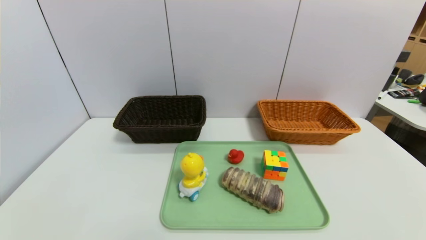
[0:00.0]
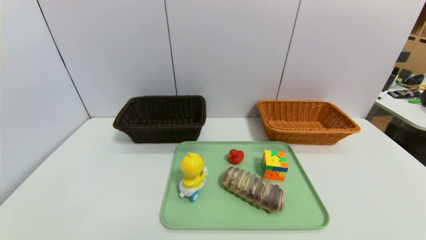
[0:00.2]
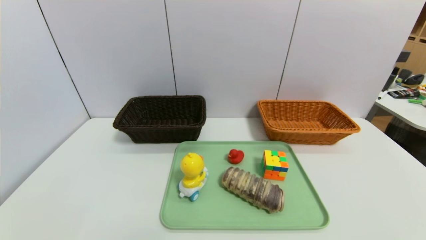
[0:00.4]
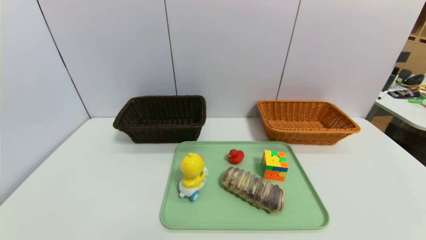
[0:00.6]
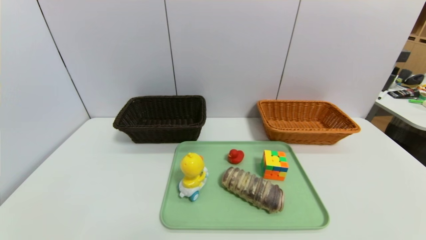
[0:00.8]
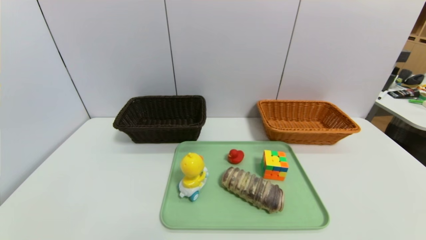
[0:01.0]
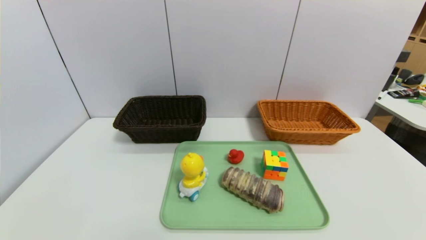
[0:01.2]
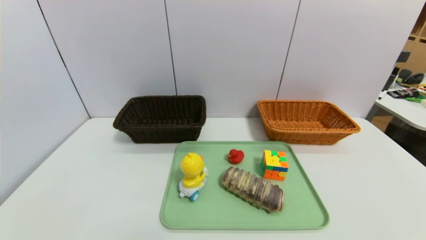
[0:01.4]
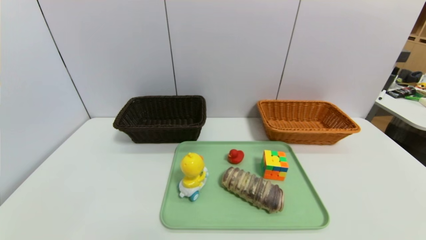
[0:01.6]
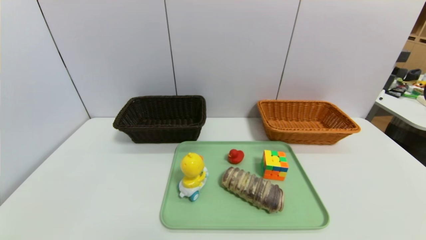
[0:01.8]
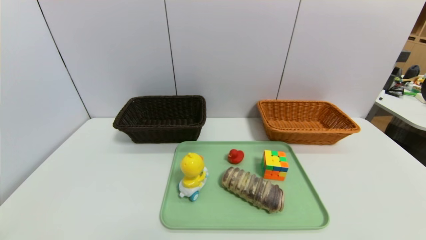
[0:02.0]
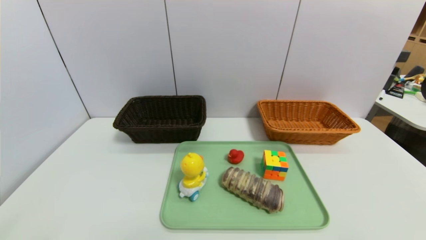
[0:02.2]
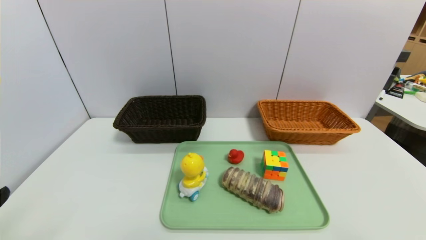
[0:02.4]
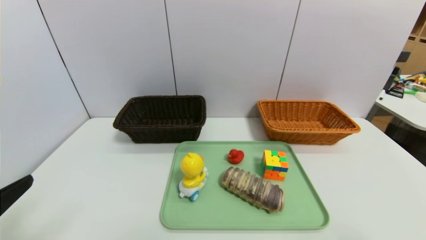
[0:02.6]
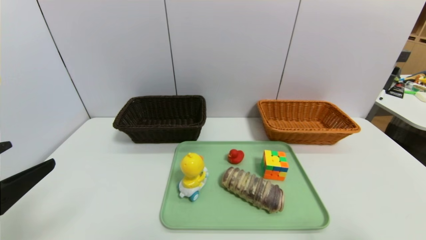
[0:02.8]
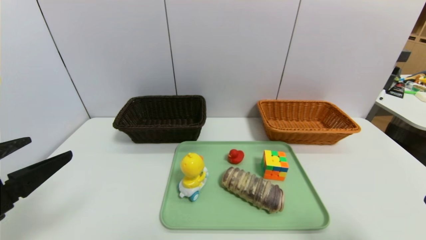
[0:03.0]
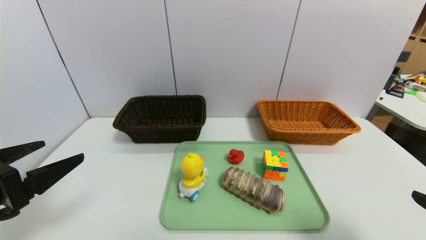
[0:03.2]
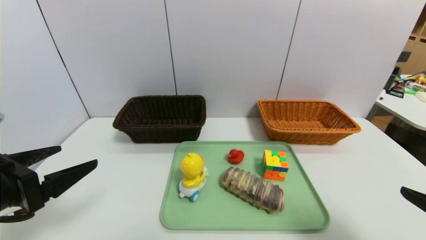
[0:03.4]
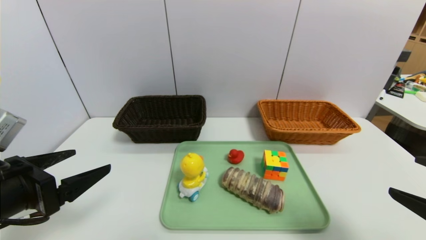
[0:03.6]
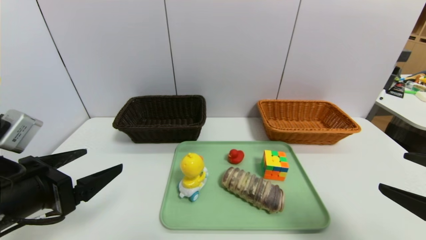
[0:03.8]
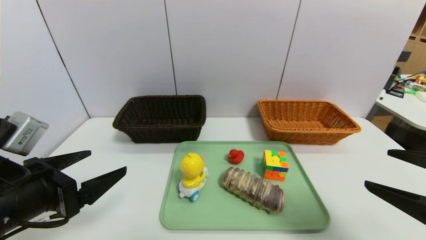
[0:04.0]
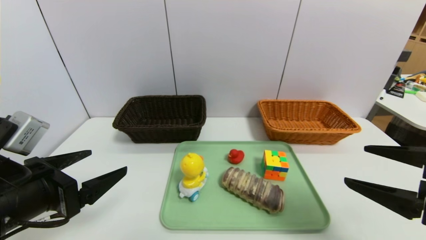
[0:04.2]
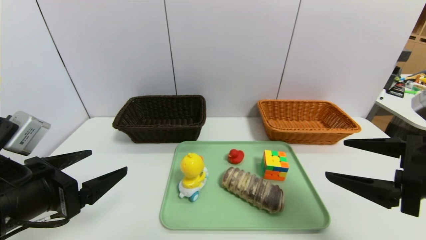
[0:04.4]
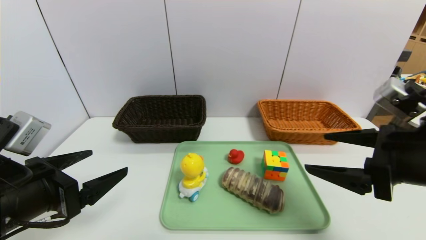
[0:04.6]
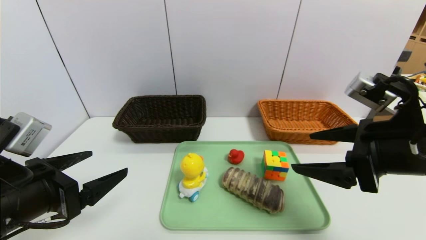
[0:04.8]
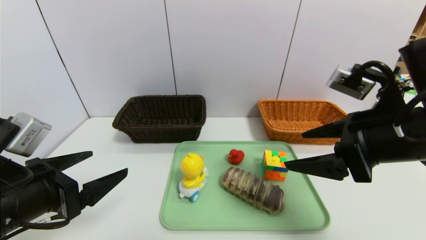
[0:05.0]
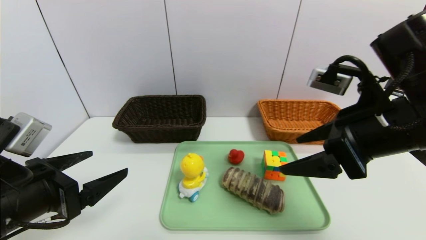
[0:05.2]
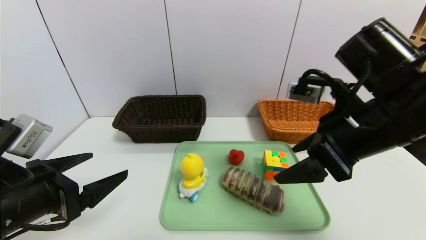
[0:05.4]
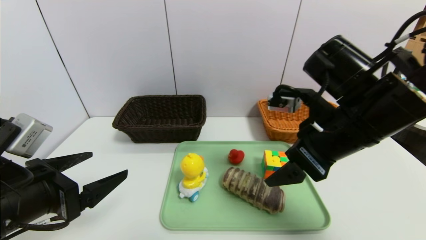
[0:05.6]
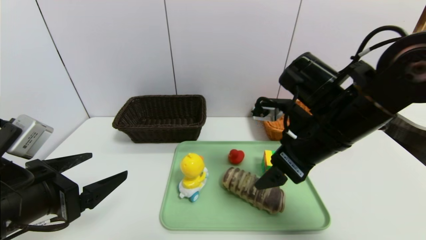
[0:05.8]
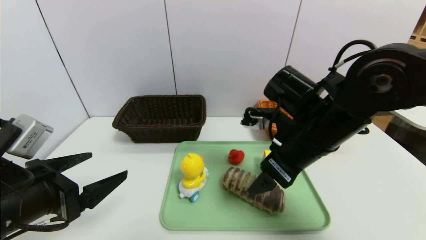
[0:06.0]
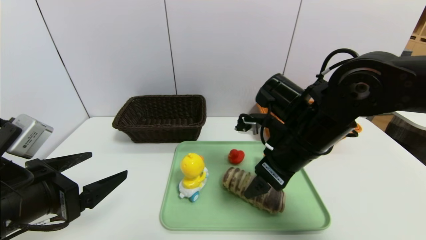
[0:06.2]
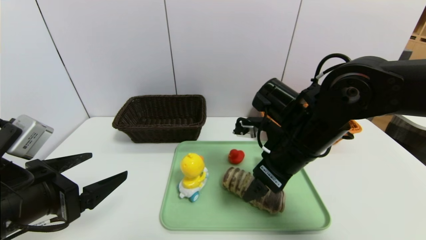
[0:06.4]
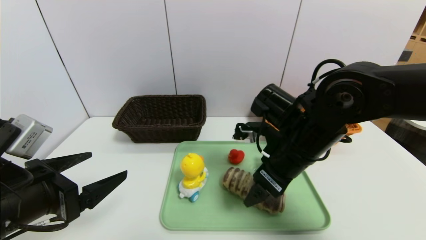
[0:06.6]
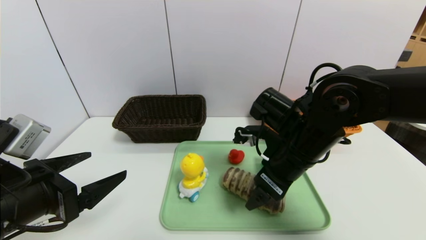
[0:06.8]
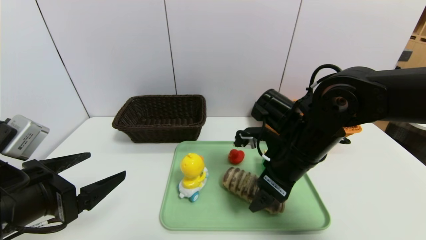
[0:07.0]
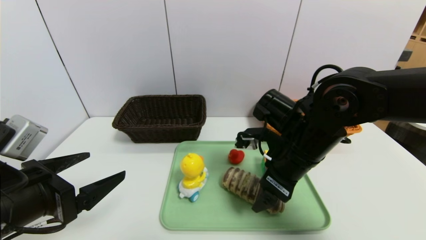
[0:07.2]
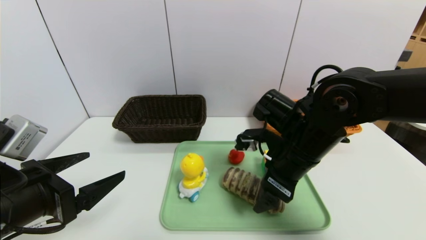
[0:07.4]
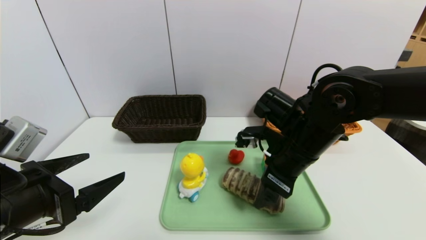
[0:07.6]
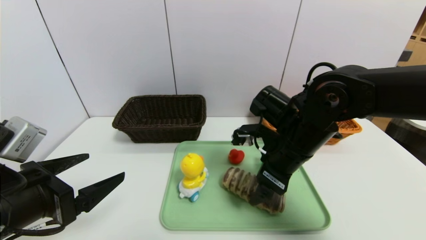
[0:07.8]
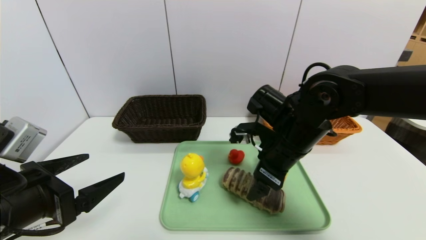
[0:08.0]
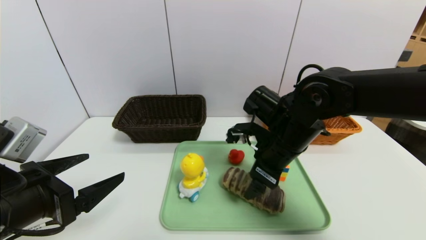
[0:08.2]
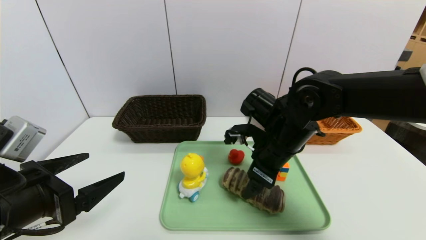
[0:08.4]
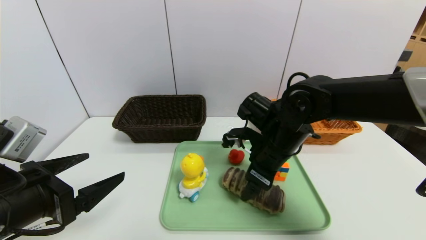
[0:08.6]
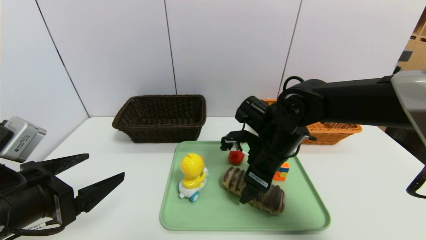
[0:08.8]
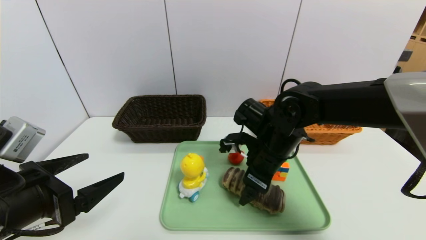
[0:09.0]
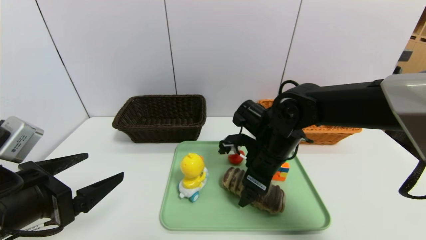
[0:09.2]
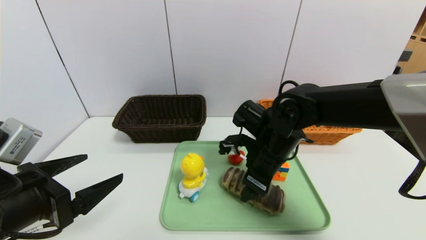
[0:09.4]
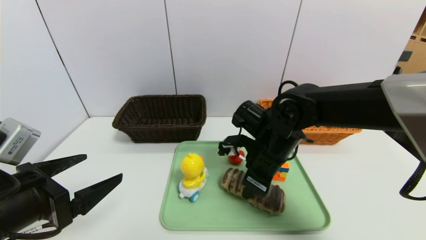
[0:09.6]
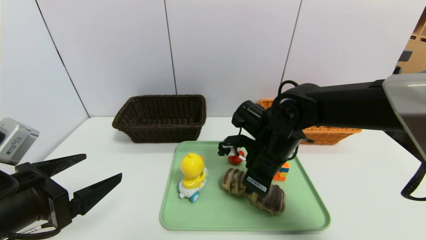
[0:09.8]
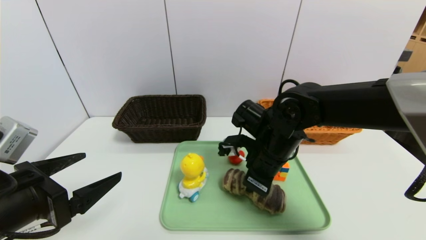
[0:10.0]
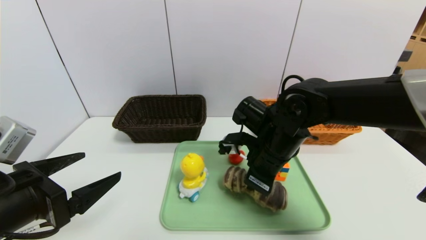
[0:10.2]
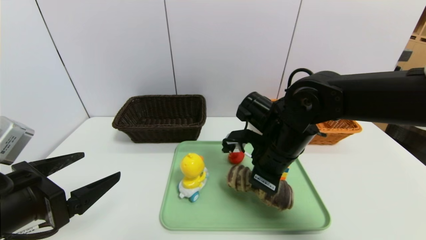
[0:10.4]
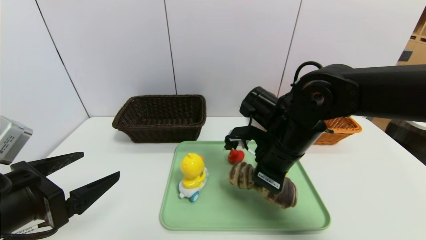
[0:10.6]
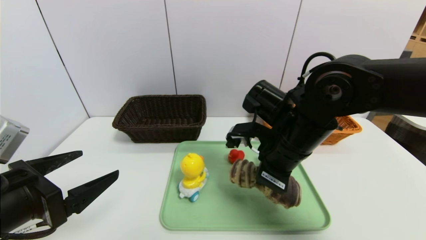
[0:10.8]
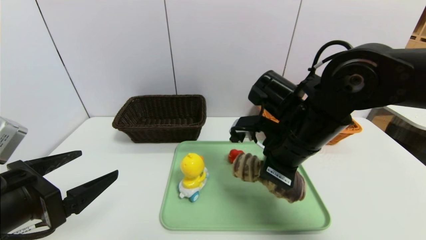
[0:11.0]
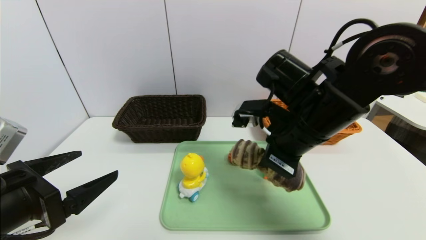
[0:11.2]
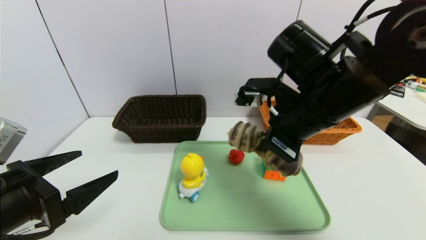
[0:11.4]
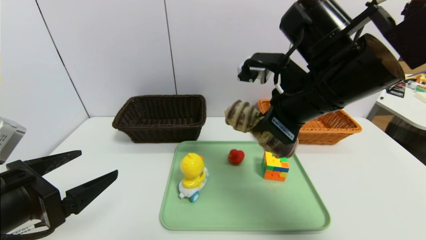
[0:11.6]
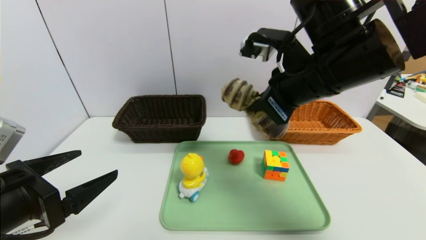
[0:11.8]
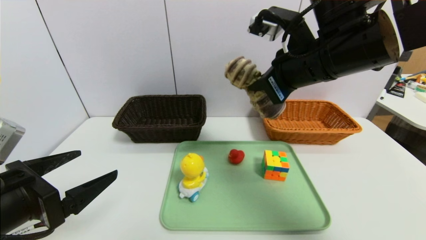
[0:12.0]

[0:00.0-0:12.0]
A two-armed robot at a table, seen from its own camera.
Task of the whole recording: place the food in the right basket with the right gripper, and place the non food items in the left basket with the left gripper.
0:01.6 to 0:03.0: The grippers both shift upward and forward by roughly 15 cm.
0:03.0 to 0:04.4: The left gripper moves about 5 cm, while the right gripper shifts roughly 10 cm forward and to the left.
0:04.4 to 0:06.0: The right gripper goes roughly 20 cm to the left and forward.
0:06.0 to 0:07.6: The grippers move only a little.
0:07.6 to 0:09.0: The right gripper ends up approximately 5 cm from where it was.
0:09.0 to 0:10.4: The right gripper closes up.
0:10.4 to 0:12.0: The right gripper goes approximately 15 cm upward.

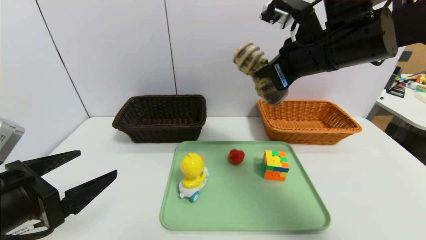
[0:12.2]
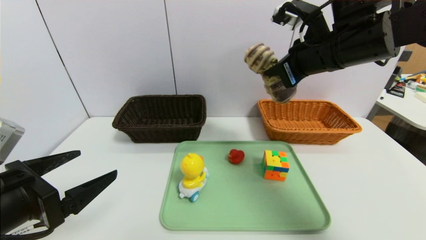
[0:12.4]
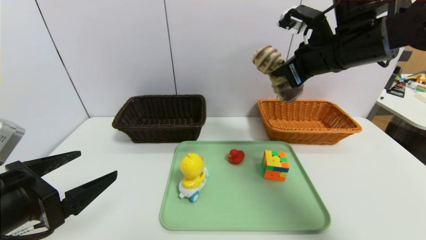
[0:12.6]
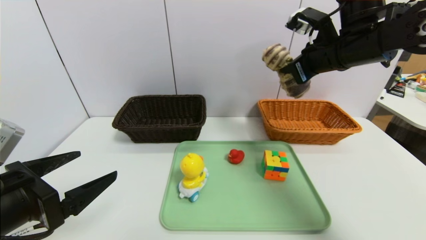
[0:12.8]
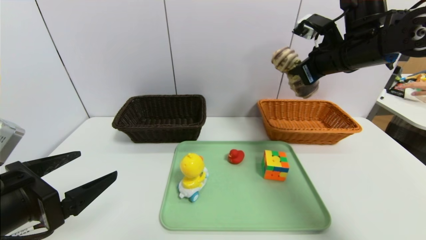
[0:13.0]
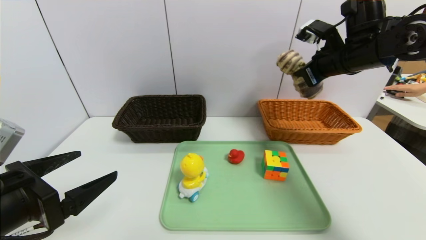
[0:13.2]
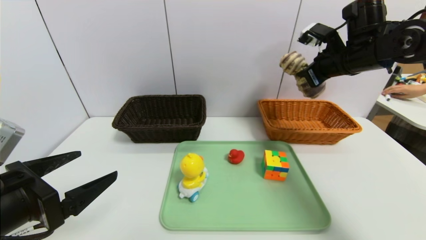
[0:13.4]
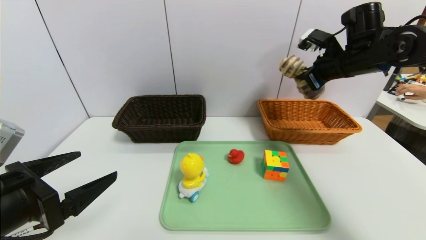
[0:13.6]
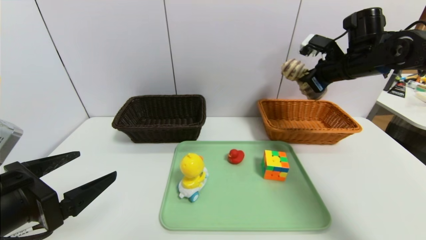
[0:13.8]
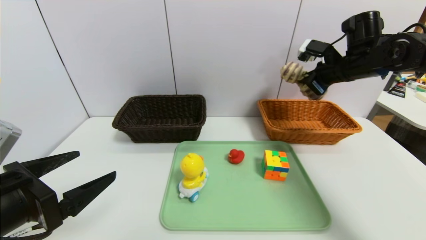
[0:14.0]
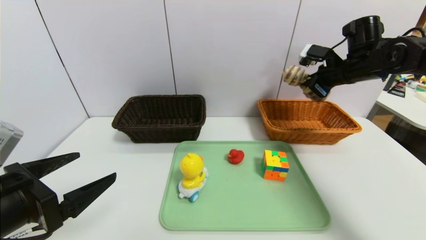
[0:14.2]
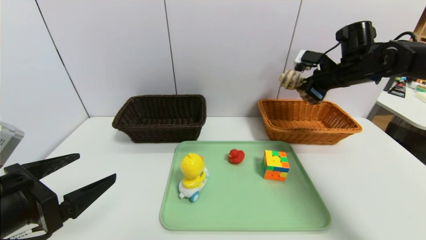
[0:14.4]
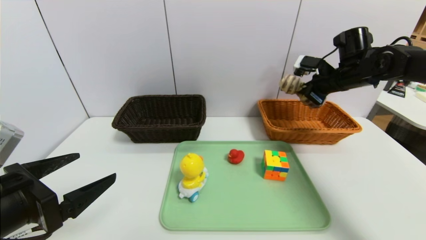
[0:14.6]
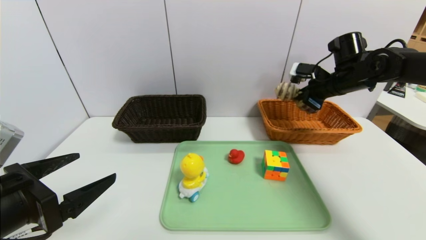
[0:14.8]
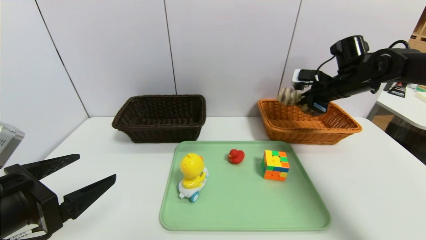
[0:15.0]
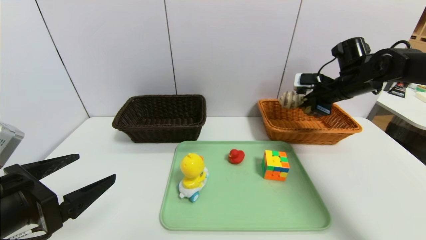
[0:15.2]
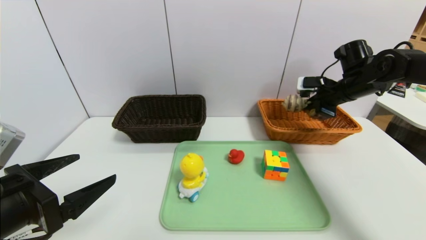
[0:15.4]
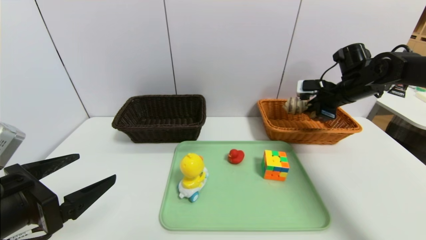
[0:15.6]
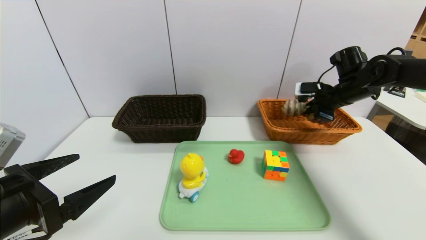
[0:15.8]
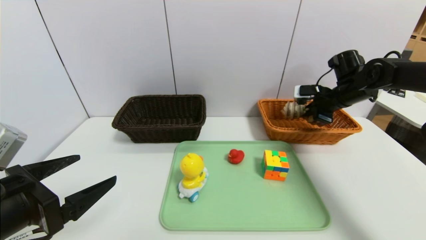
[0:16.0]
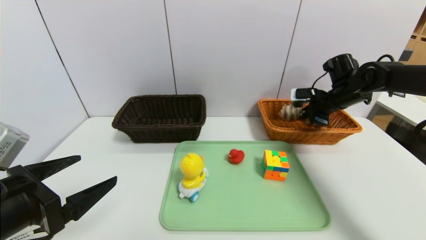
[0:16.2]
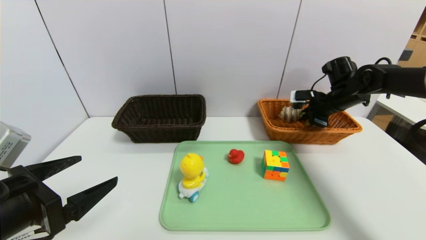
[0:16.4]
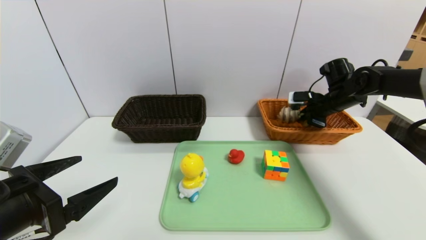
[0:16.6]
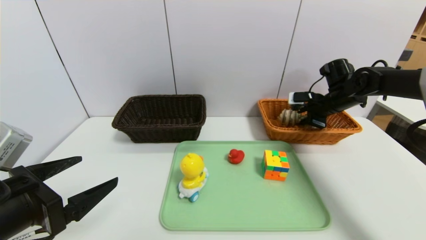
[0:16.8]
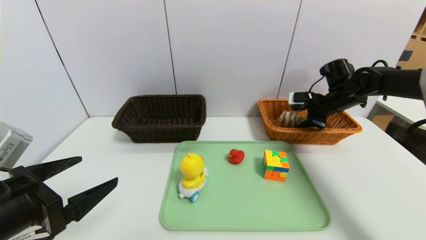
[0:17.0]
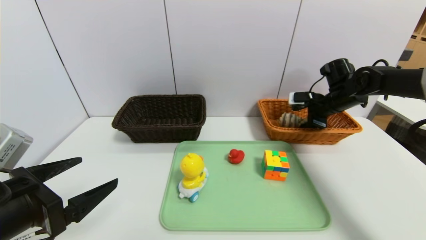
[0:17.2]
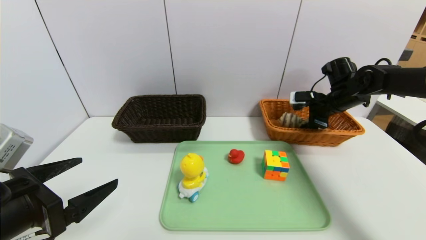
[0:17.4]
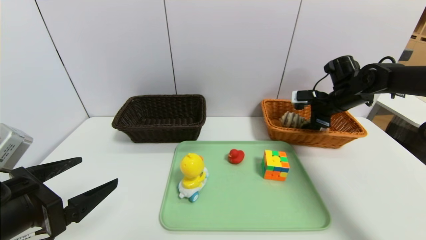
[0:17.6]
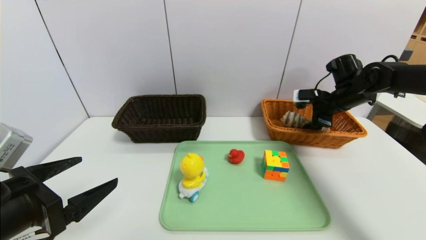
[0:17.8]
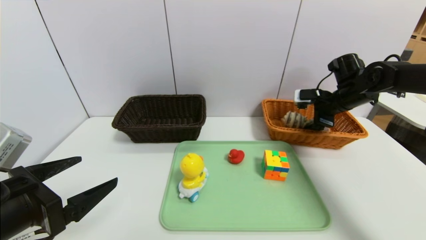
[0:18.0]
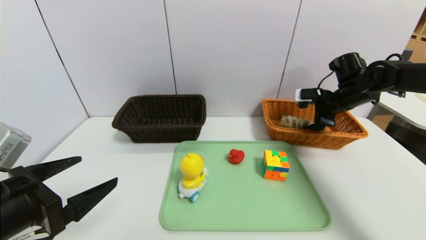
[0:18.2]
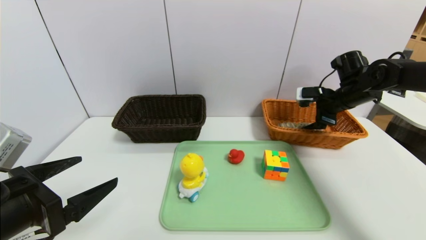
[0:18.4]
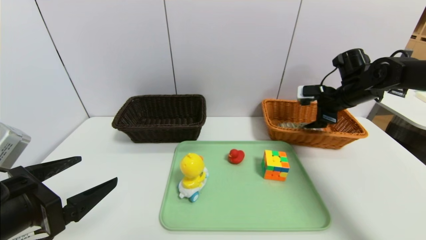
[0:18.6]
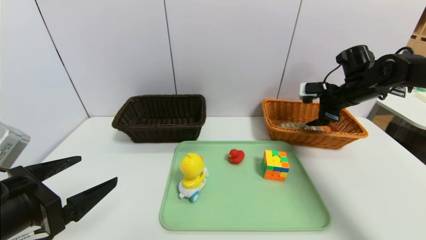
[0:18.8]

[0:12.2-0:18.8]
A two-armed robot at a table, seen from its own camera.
Task of the whole recording: place the food in the right basket with the right gripper, and place the non food items in the left basket with the left gripper.
0:12.2 to 0:13.8: The right gripper moves to the right, forward and downward, about 20 cm.
0:13.8 to 0:15.4: The right gripper goes approximately 5 cm downward.
0:15.4 to 0:17.2: The right gripper opens.
0:17.2 to 0:18.8: The grippers move only a little.
